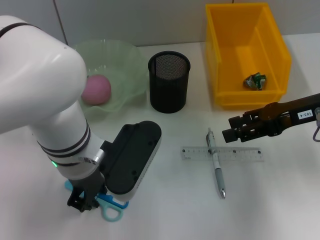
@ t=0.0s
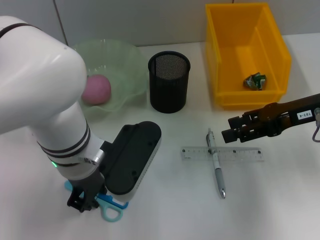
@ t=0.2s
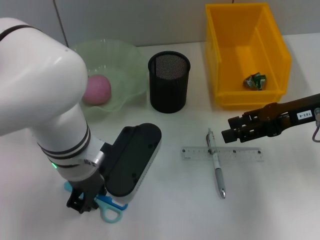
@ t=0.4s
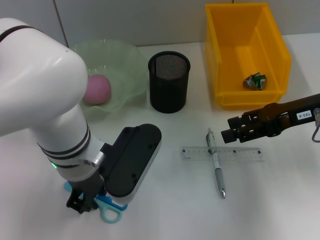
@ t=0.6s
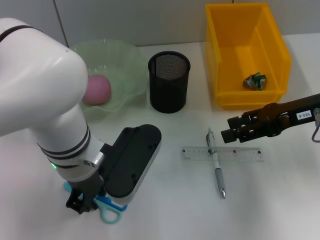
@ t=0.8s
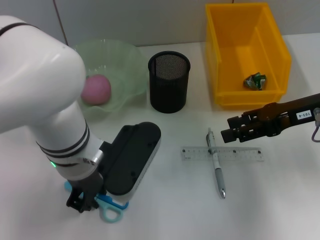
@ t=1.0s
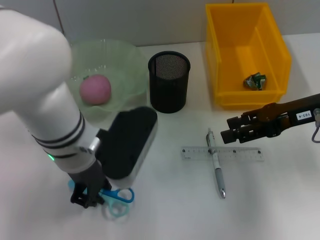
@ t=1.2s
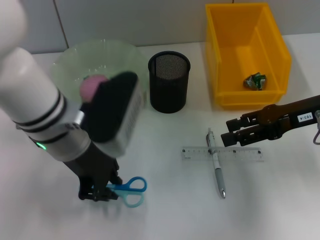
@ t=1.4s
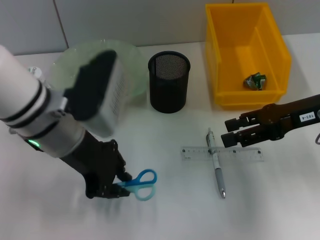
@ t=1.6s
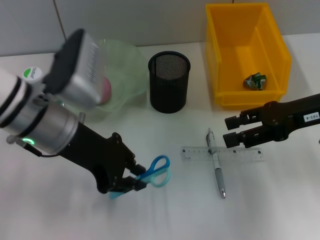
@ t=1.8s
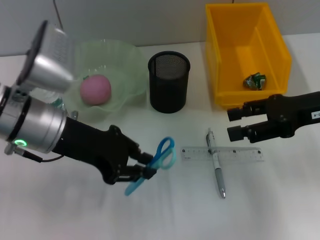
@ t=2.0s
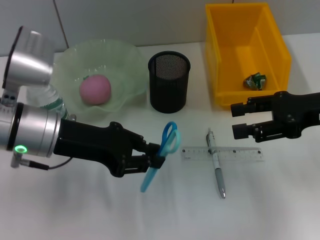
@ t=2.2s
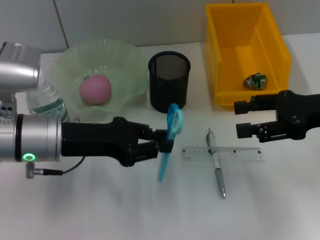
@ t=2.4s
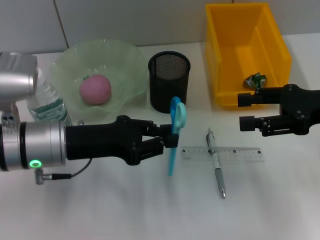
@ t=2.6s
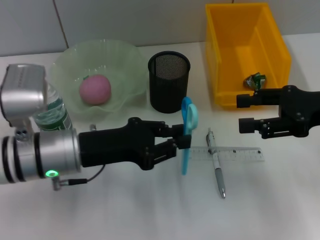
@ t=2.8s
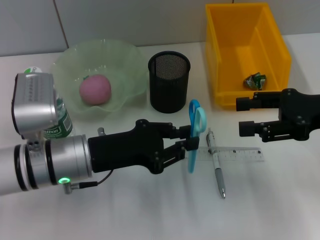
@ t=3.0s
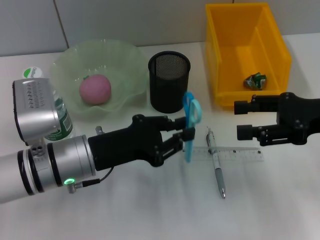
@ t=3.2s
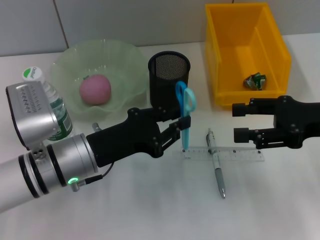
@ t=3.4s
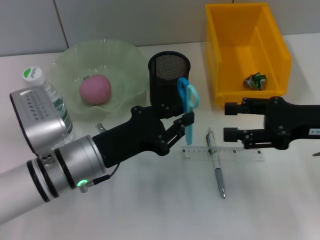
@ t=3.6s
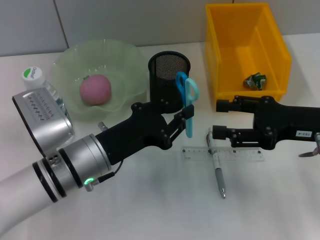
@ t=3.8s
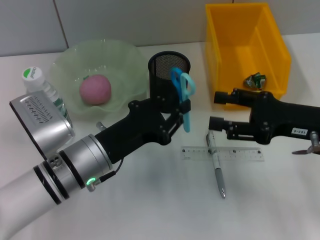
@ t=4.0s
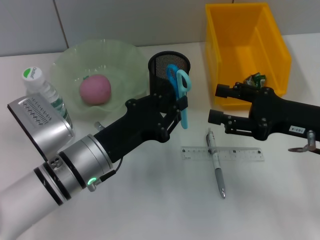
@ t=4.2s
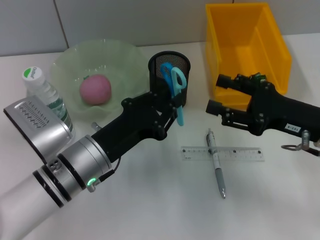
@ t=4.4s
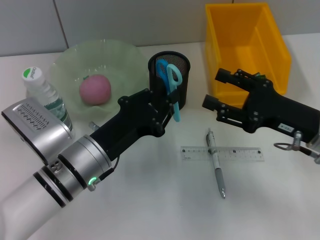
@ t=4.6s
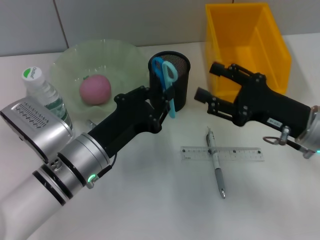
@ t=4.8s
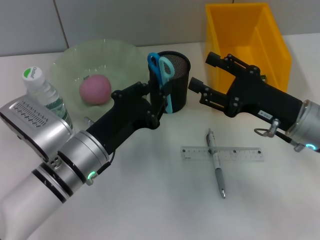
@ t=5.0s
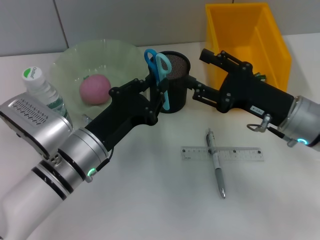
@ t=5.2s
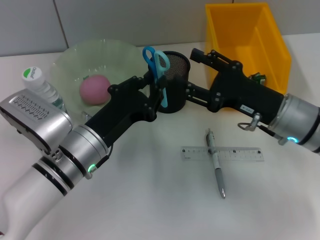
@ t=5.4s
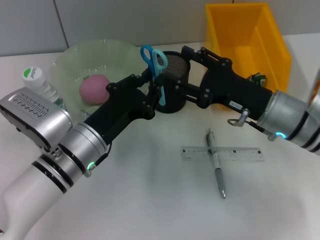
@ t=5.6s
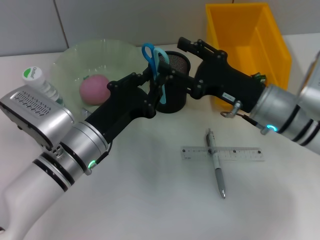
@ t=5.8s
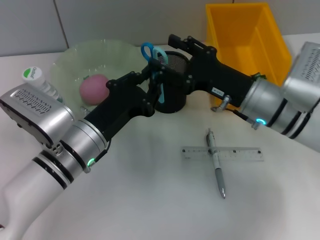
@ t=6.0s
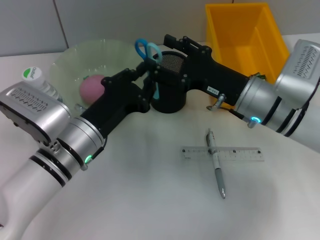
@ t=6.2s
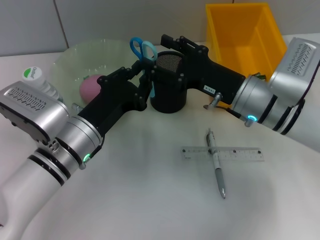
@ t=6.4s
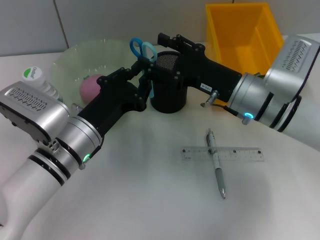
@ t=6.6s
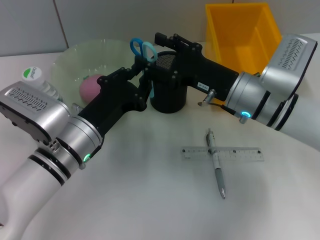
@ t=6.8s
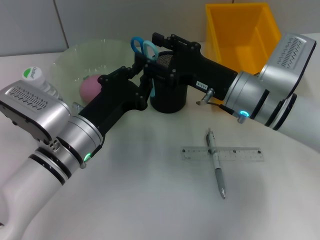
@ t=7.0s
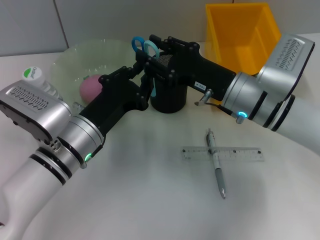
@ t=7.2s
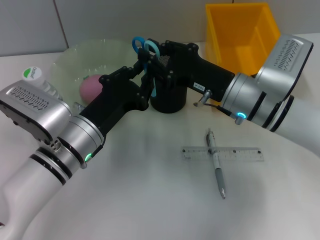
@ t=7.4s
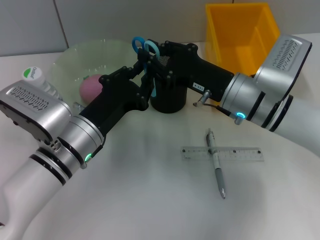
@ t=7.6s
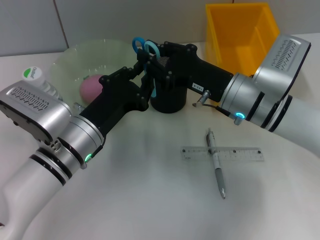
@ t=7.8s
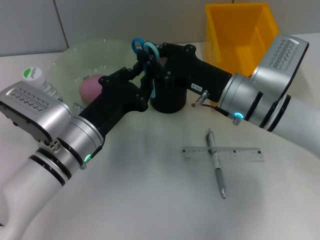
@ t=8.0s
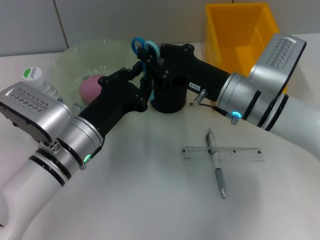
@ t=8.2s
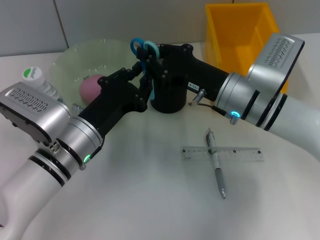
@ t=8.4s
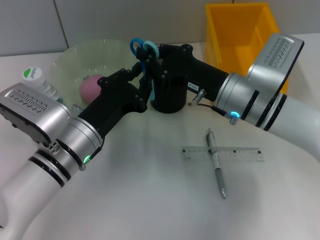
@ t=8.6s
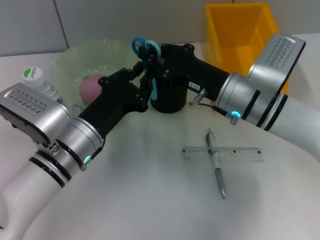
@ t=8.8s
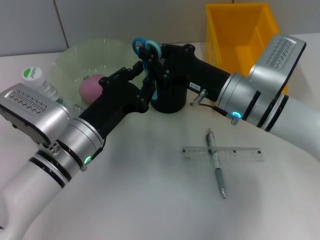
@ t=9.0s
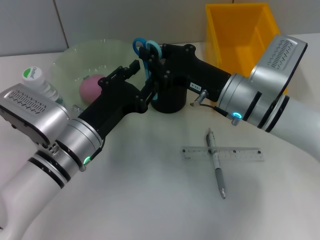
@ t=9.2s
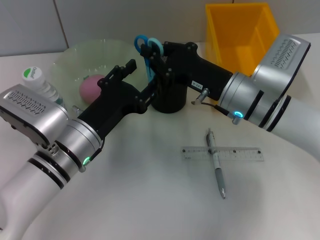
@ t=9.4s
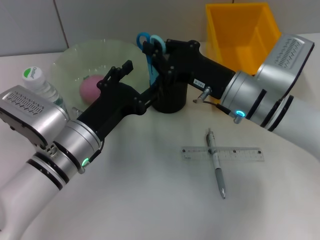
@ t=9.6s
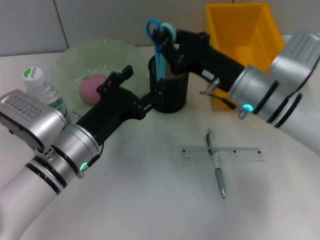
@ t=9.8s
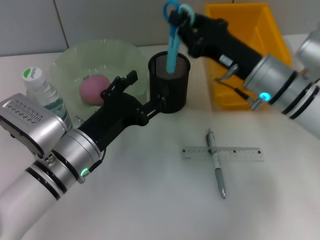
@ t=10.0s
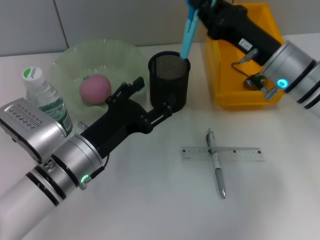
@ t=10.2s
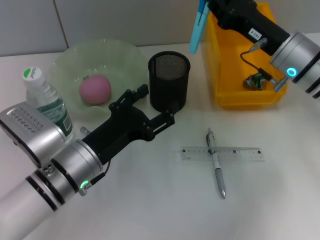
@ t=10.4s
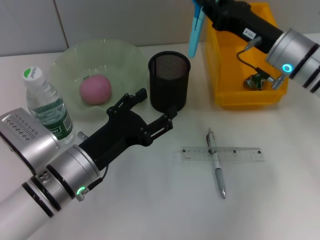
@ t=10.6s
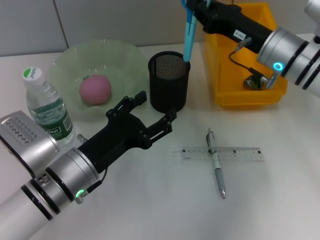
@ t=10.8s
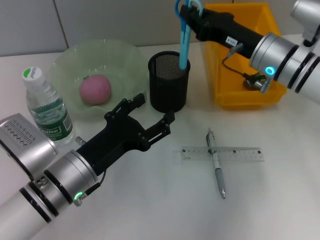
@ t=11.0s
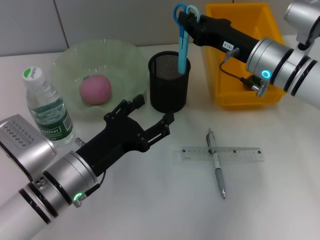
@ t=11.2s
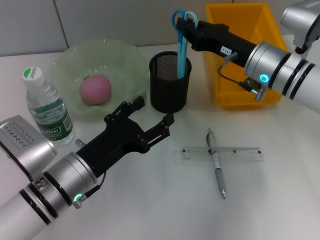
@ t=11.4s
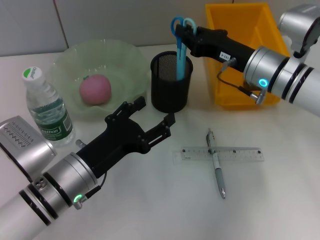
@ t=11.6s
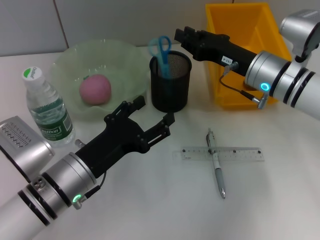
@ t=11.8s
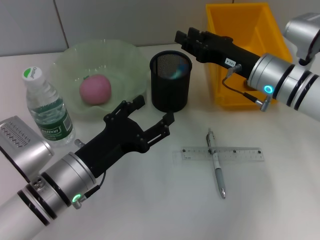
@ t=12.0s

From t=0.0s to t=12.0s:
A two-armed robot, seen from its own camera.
Step, from t=0.8s to t=9.4s: Pass the blue scissors from the left hand to the right hand.
Step, from t=9.6s to t=11.8s: Place the blue scissors into the pen holder with the right hand.
From t=0.0s to t=1.6s: The left gripper shifts by approximately 5 cm.
From t=1.6s to t=3.0s: The left gripper is displaced downward by about 10 cm.
From t=3.0s to t=4.4s: The right gripper is displaced downward by about 5 cm.
From t=4.4s to t=6.0s: The right gripper is displaced to the left and forward by roughly 10 cm.
From t=6.0s to t=7.6s: The right gripper closes.
From t=7.6s to t=9.0s: The two grippers keep their place.
From t=9.0s to t=10.4s: The right gripper goes some 5 cm to the right, while the left gripper opens its fingers.

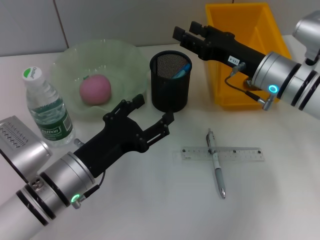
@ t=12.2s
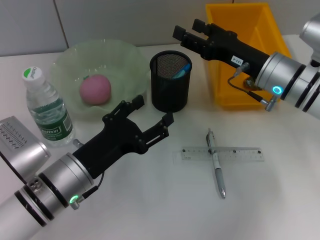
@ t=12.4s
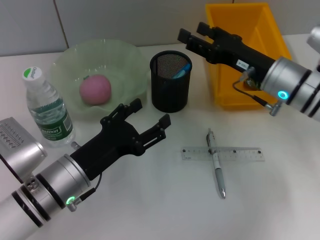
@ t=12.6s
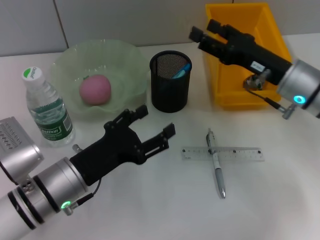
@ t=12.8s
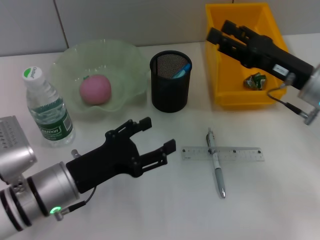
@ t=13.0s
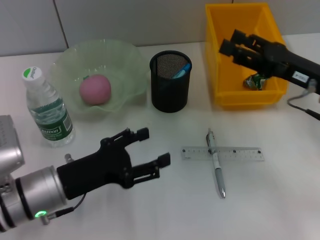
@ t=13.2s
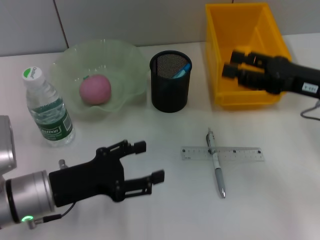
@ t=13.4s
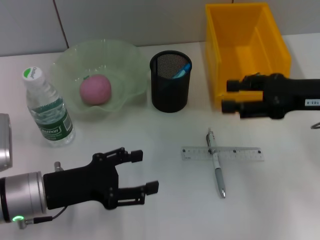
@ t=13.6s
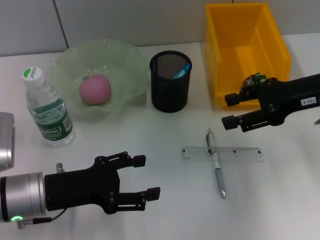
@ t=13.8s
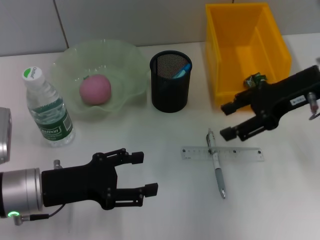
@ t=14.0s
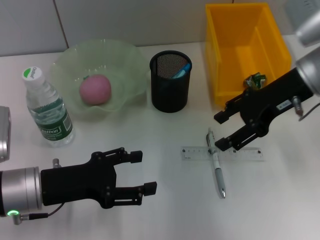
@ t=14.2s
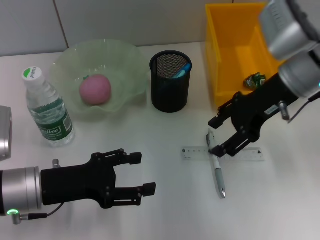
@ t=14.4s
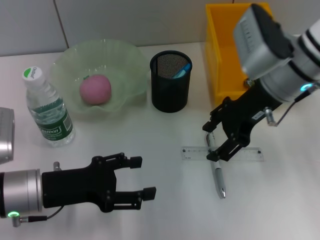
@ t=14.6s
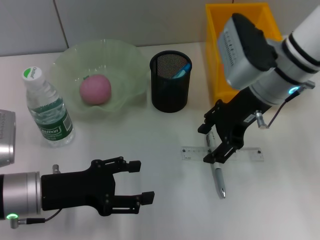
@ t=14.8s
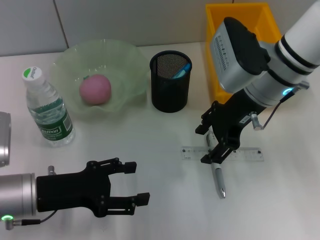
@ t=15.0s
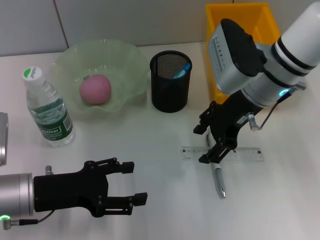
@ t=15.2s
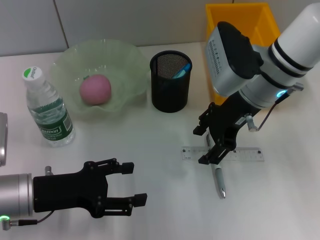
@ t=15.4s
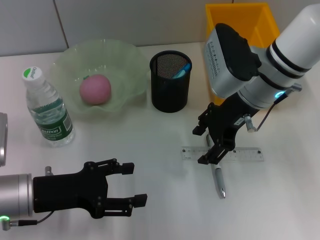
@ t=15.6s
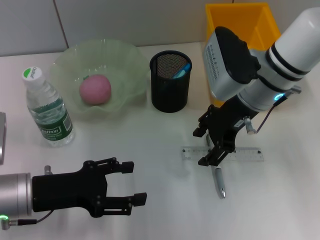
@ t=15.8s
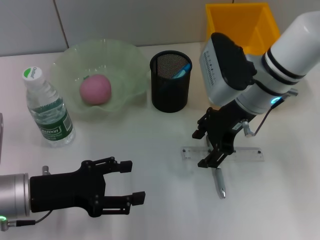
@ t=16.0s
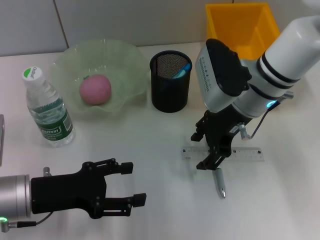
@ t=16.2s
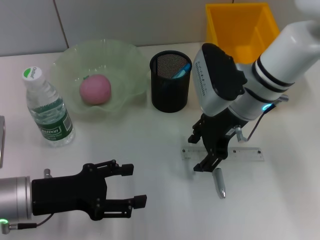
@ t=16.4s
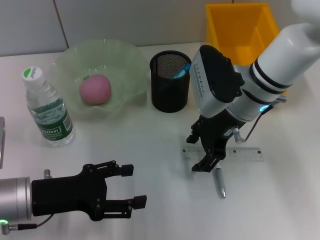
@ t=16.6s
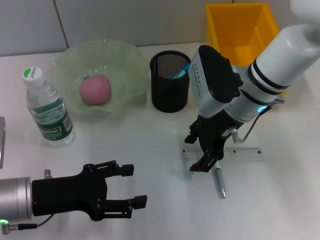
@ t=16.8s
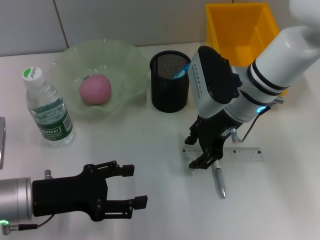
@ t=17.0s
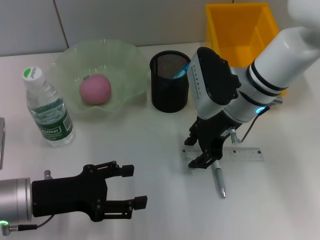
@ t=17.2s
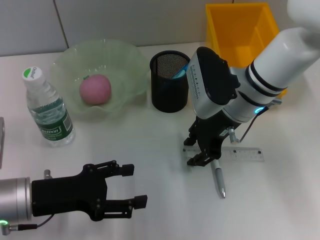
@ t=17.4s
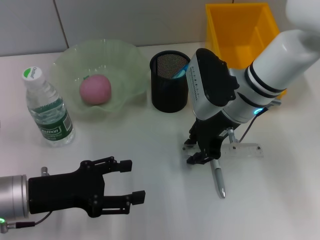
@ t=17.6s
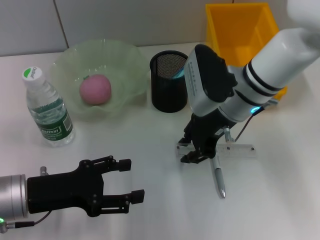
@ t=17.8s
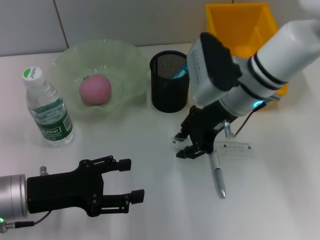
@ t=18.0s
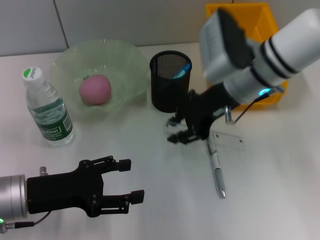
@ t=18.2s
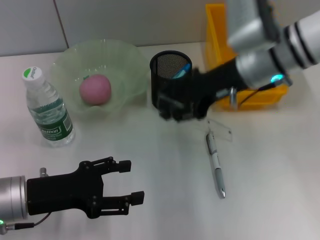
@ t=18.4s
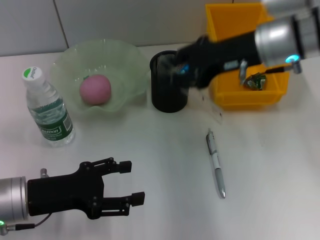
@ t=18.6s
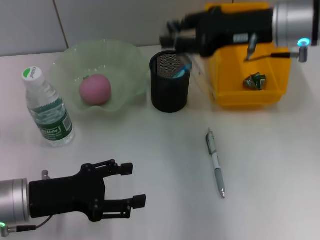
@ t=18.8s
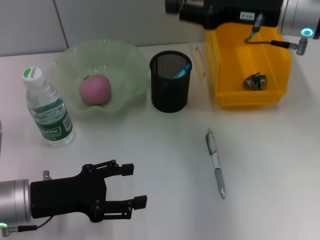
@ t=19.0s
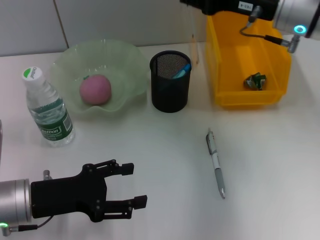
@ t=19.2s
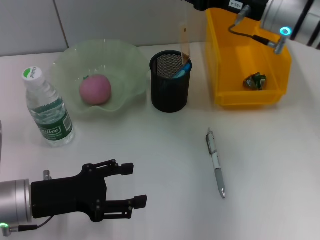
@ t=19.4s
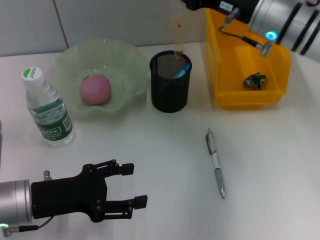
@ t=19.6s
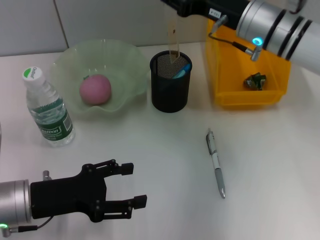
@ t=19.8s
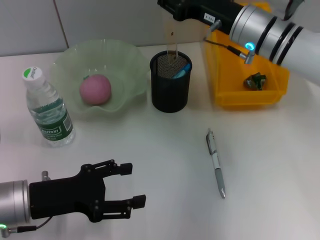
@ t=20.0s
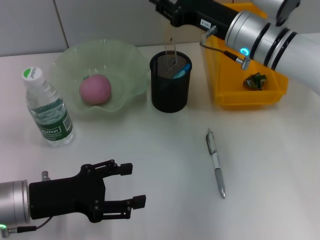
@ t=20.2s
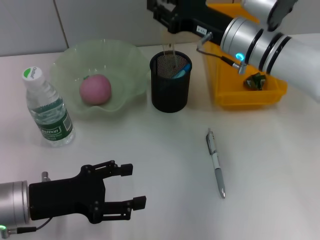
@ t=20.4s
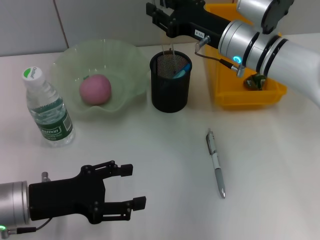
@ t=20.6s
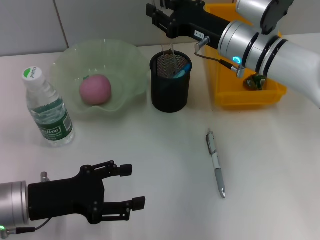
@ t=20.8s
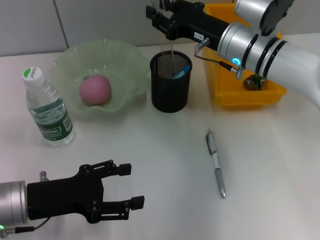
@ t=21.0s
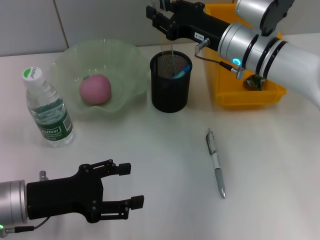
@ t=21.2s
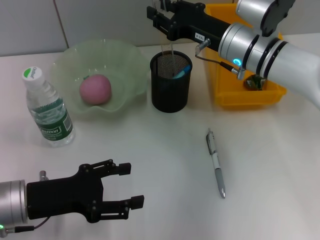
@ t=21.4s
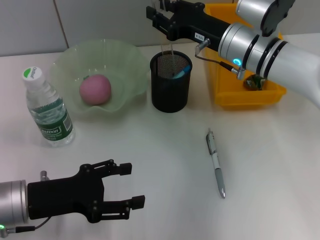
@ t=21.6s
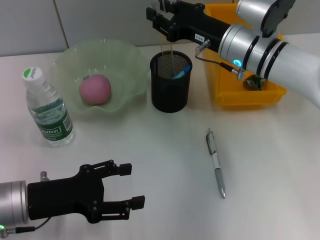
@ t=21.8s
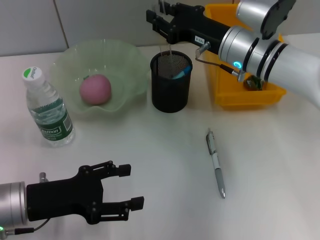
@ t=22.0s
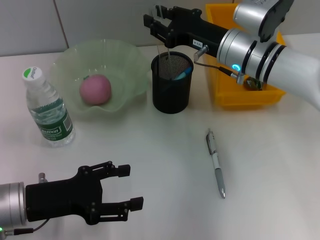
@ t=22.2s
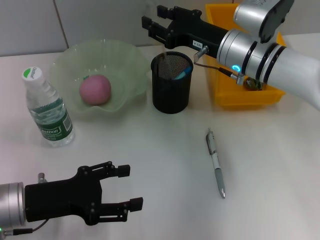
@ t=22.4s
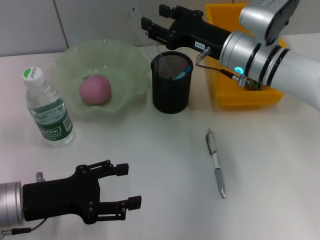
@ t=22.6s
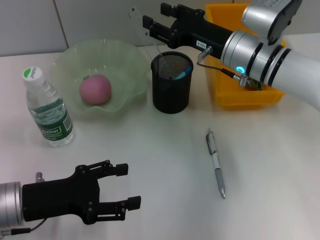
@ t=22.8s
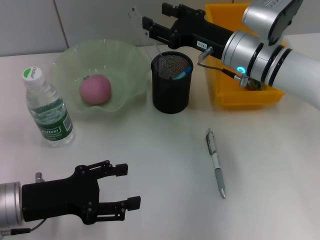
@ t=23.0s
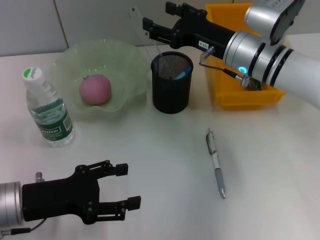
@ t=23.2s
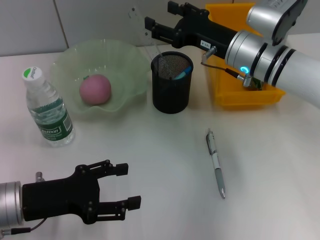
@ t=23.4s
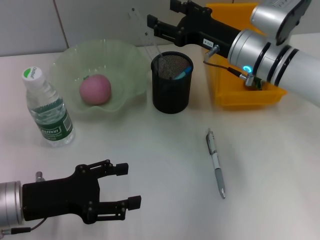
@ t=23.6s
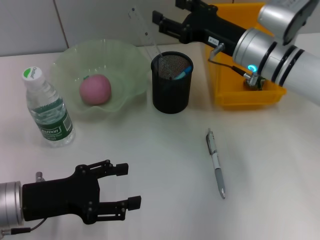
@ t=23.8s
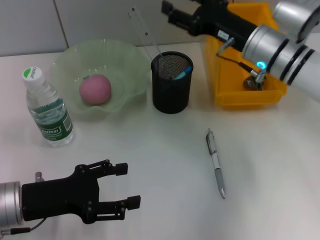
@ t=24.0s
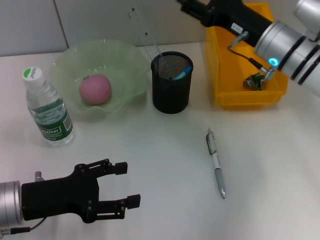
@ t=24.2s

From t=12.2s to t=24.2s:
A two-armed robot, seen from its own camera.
Step, from t=12.2s to t=17.6s: Grab the ruler with the right hand.
Step, from t=17.8s to t=22.6s: Place the ruler into the pen holder with the right hand.
From t=12.2s to t=13.8s: The left gripper shifts approximately 5 cm to the left. Meanwhile the right gripper shifts approximately 10 cm to the right and upward, and opens its fingers.
From t=13.8s to t=15.2s: The right gripper shifts approximately 10 cm to the left.
From t=15.2s to t=16.6s: The grippers make only small movements.
From t=16.6s to t=18.2s: The right gripper closes up.
From t=19.8s to t=21.2s: The grippers move only a little.
From t=21.2s to t=22.6s: Both grippers stay about where they are.
From t=22.6s to t=24.2s: There are only small adjustments of the grippers.
